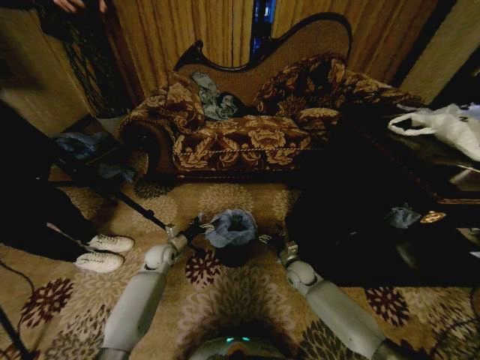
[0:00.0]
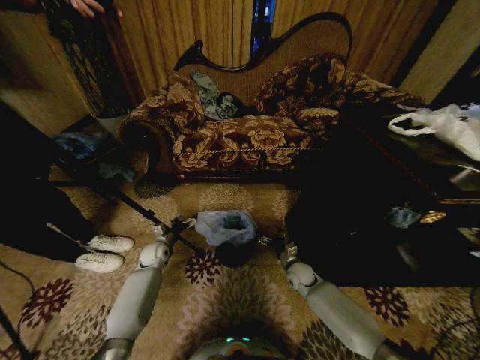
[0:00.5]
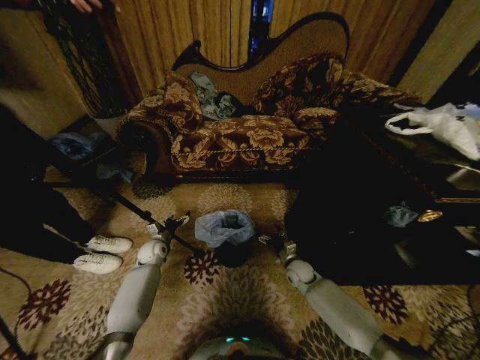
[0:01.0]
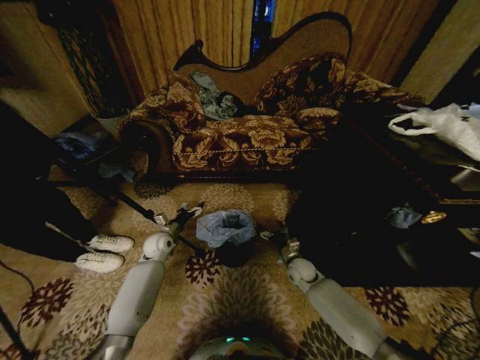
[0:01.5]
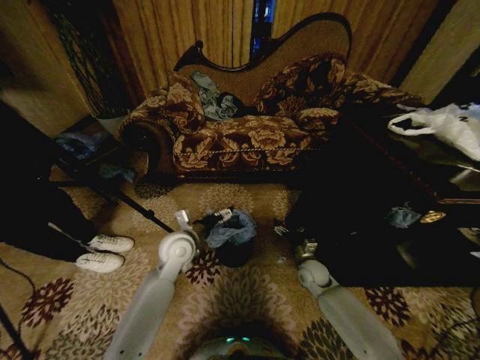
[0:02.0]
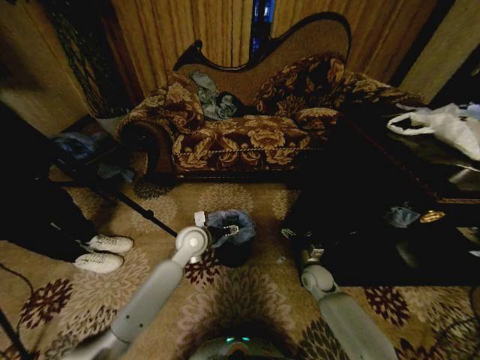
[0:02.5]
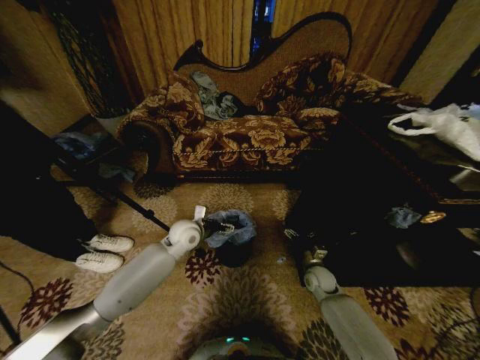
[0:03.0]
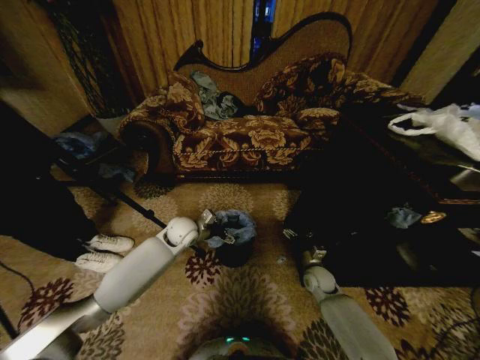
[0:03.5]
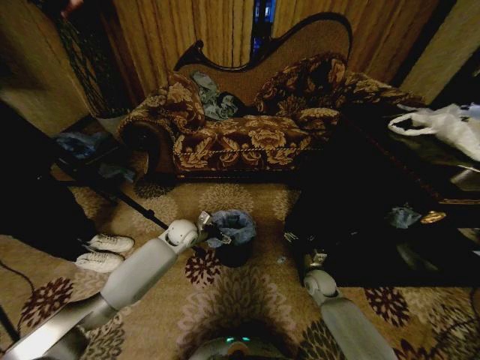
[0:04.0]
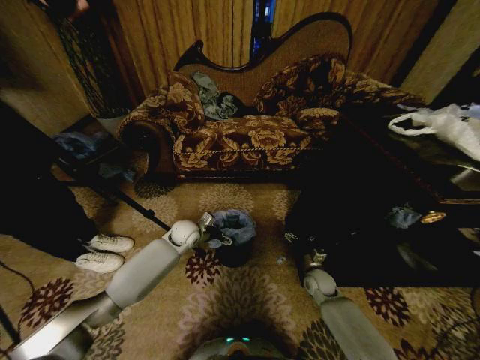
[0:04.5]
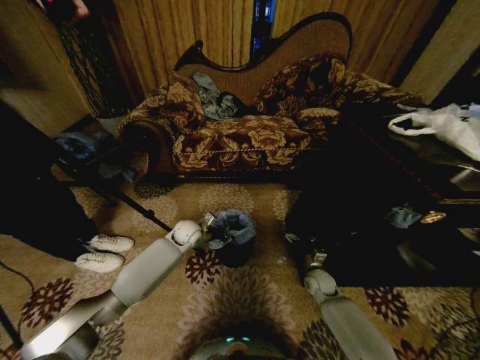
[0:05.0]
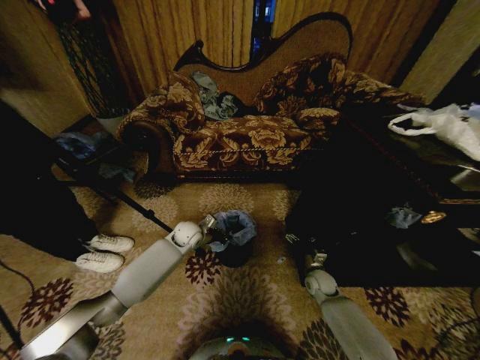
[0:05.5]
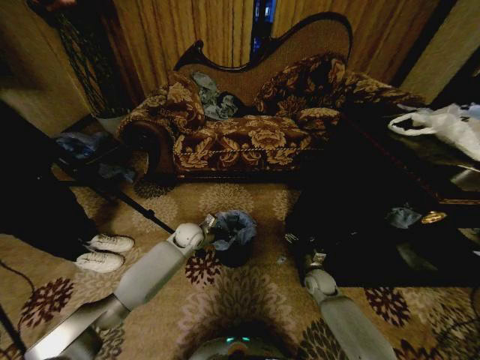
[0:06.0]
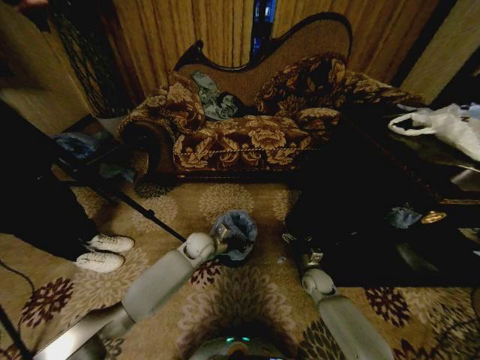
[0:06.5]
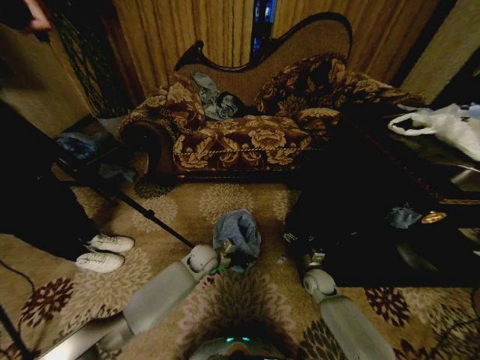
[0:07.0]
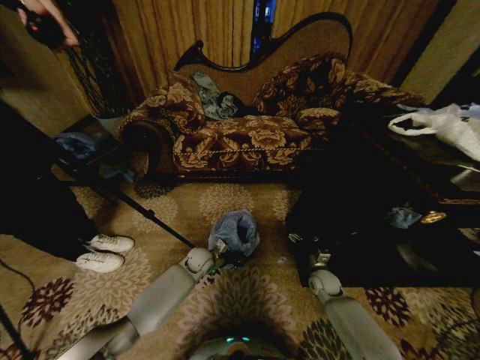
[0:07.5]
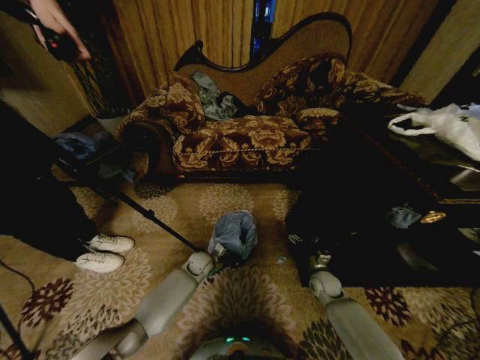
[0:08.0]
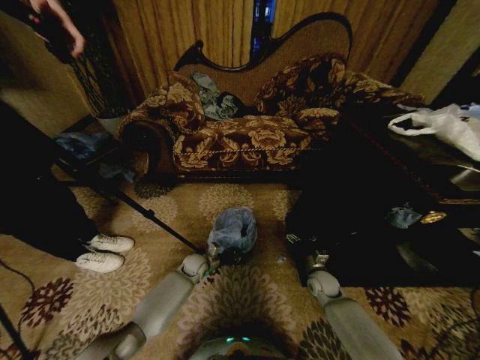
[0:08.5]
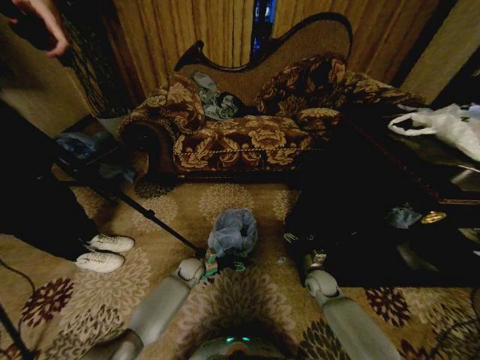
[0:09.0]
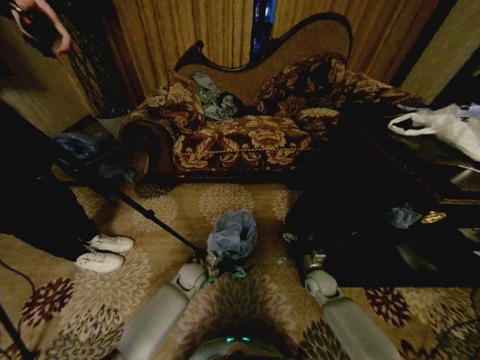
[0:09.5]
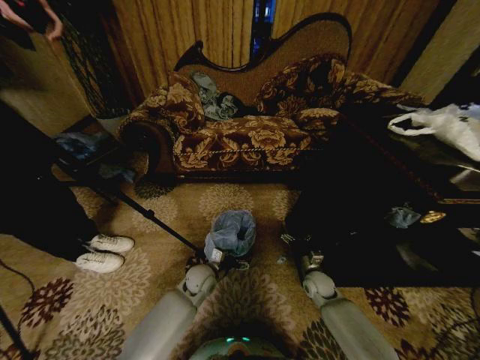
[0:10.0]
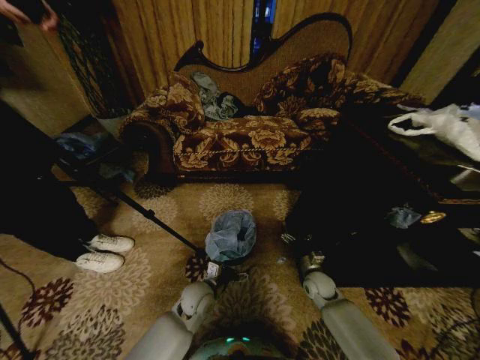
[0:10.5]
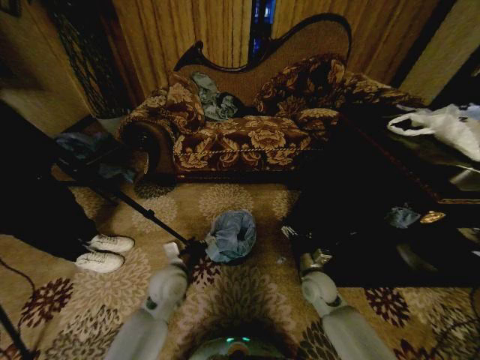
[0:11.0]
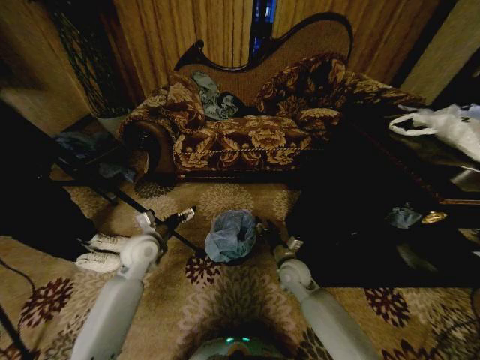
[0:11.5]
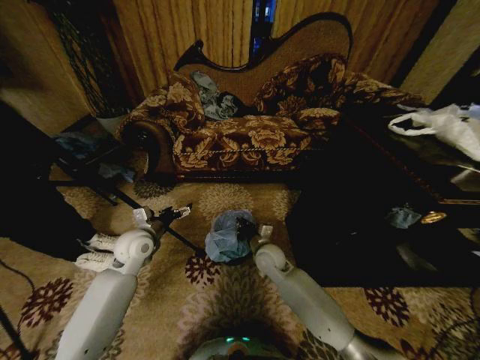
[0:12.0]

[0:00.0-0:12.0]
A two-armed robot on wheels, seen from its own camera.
Task of the whole recording: Place a garbage bag over the trash bin.
0:00.0 to 0:02.0: The left gripper shifts about 20 cm upward and to the right.
0:02.0 to 0:04.0: The right gripper changes place by approximately 5 cm. The left gripper heads forward and downward, covering roughly 10 cm.
0:04.0 to 0:06.0: The left gripper closes.
0:06.0 to 0:08.0: The left gripper shifts about 10 cm downward.
0:08.0 to 0:10.0: The left gripper shifts roughly 10 cm backward and upward, and opens.
0:10.0 to 0:12.0: Both grippers move to the left and upward, approximately 25 cm. The right gripper closes its fingers.

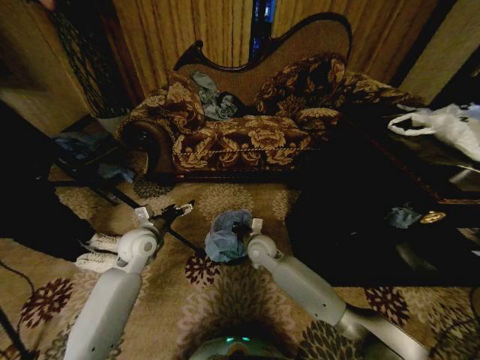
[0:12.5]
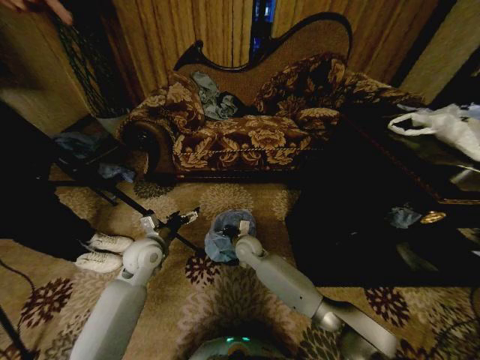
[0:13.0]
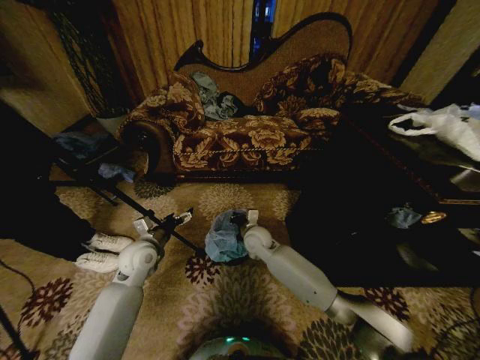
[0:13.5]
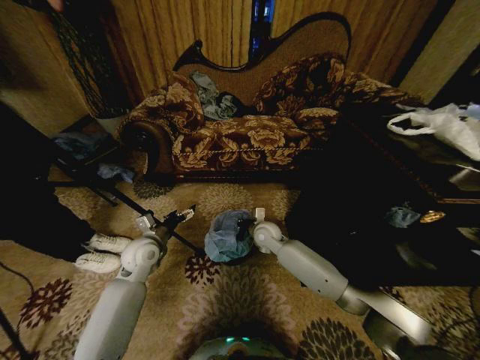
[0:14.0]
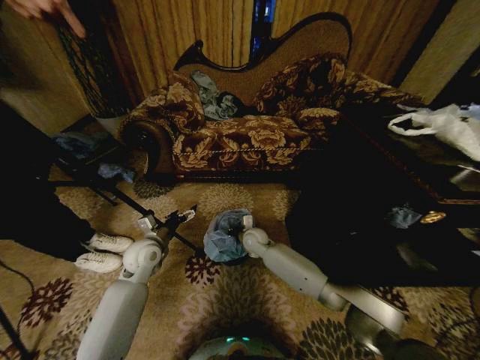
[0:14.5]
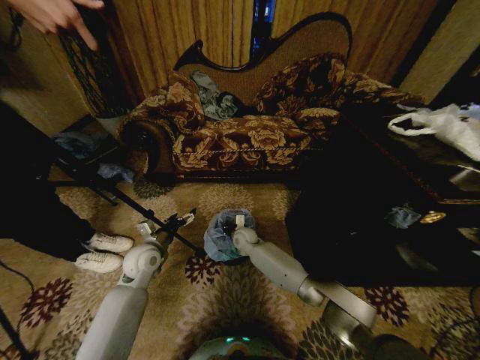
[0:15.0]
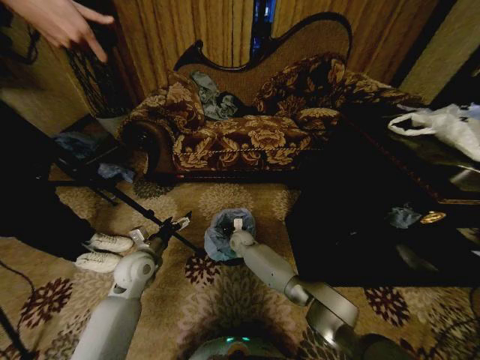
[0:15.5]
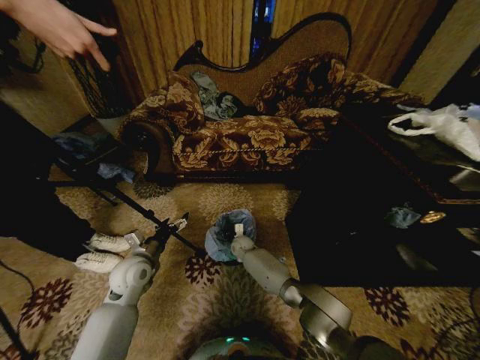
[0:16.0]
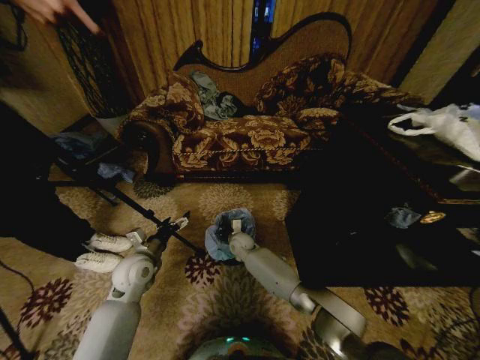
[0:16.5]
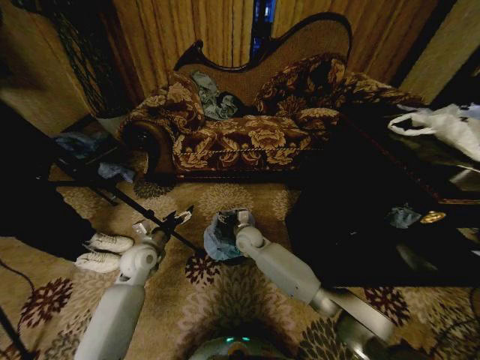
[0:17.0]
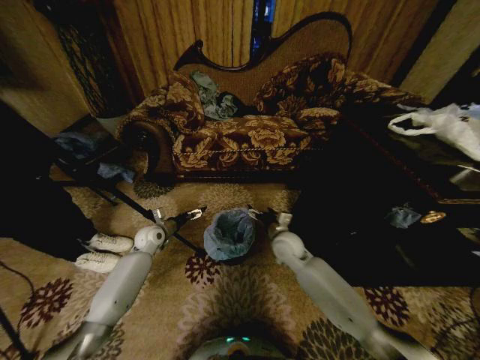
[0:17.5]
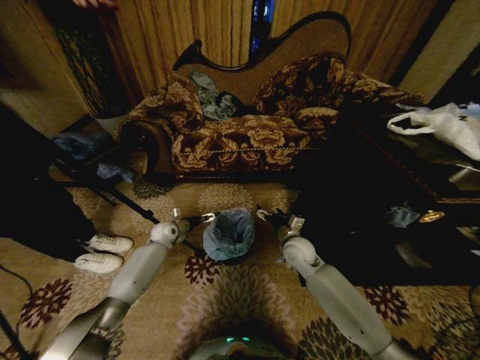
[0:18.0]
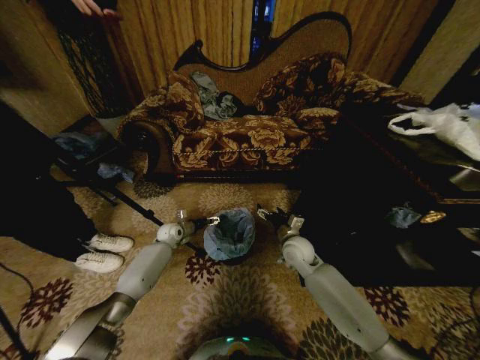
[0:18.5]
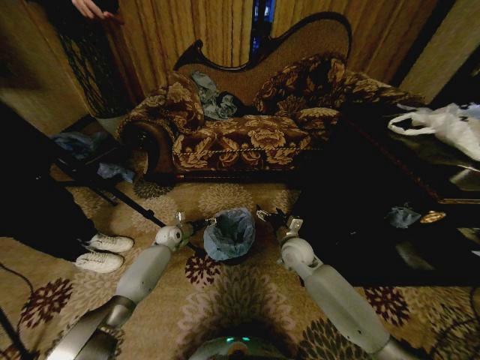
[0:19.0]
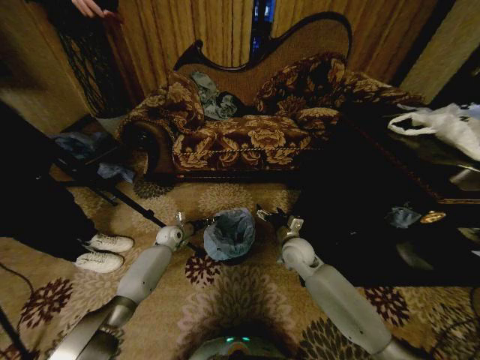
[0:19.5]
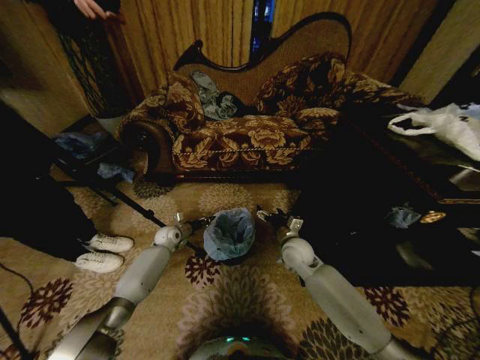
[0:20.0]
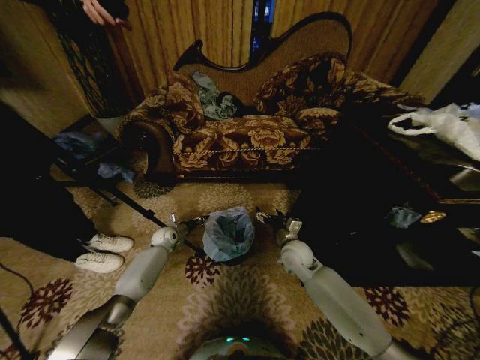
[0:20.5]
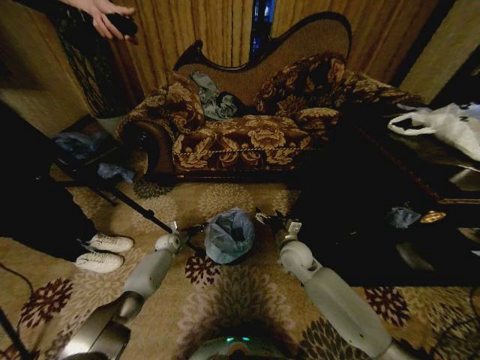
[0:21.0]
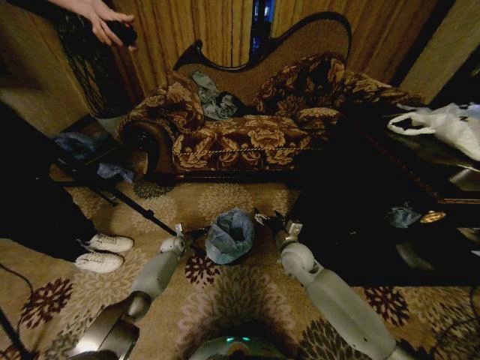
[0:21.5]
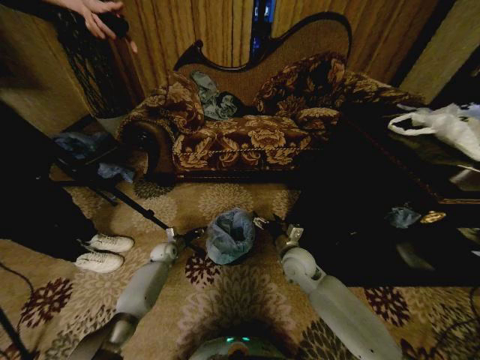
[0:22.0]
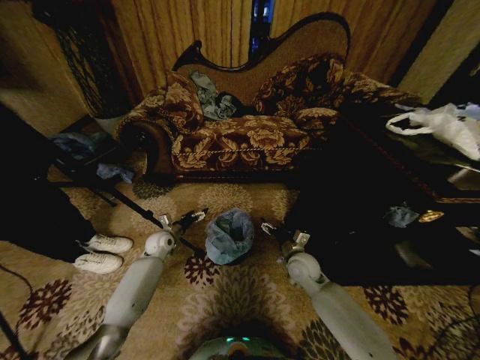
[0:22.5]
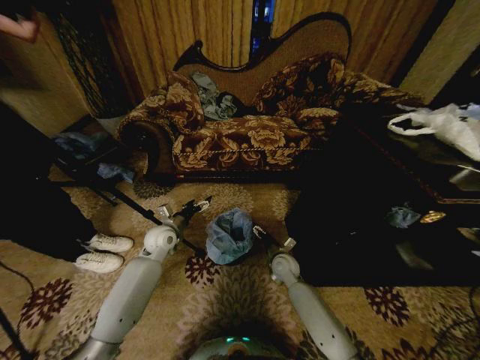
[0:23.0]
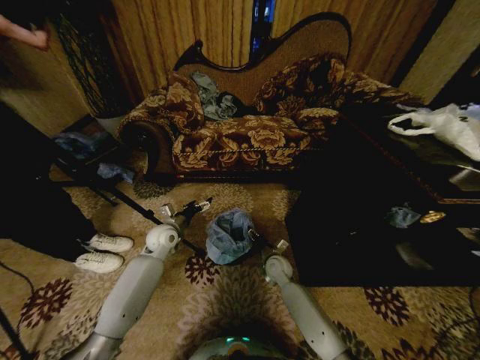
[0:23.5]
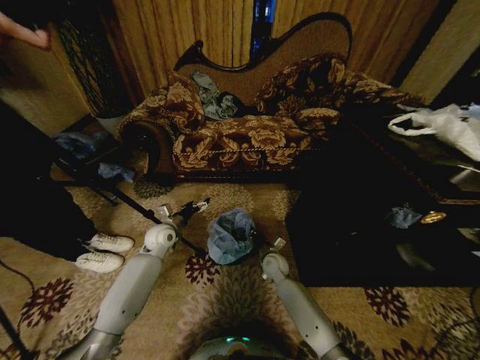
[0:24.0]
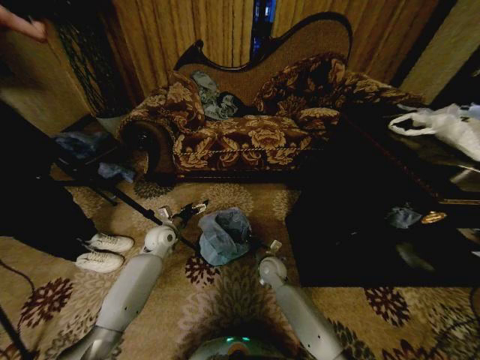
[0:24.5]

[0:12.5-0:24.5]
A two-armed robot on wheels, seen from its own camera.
Task of the whole recording: Place a garbage bag over the trash bin.
0:12.5 to 0:14.5: The right gripper heads forward, covering approximately 5 cm.
0:14.5 to 0:16.5: The right gripper goes approximately 5 cm downward and to the left.
0:16.5 to 0:18.5: The left gripper travels forward and downward by some 20 cm. The right gripper heads to the right, upward and backward, covering some 20 cm, and opens its fingers.
0:18.5 to 0:20.5: The left gripper closes up.
0:20.5 to 0:22.5: The left gripper shifts approximately 5 cm backward, travels downward and back again, roughly 10 cm each way, and opens its fingers.
0:22.5 to 0:24.5: The left gripper heads upward, covering some 5 cm, while the right gripper moves to the left and downward, some 10 cm, and closes its fingers.

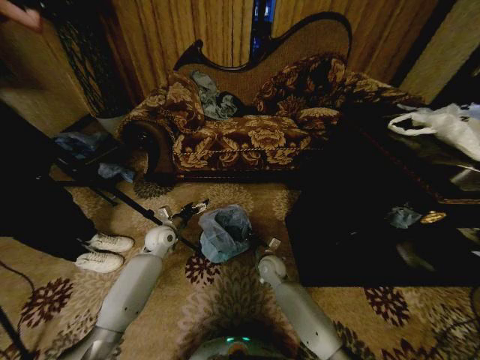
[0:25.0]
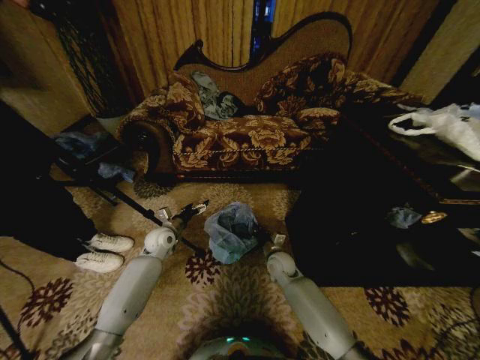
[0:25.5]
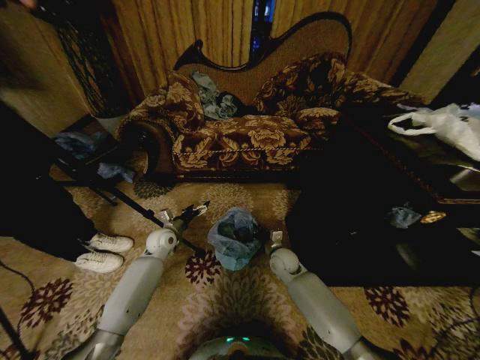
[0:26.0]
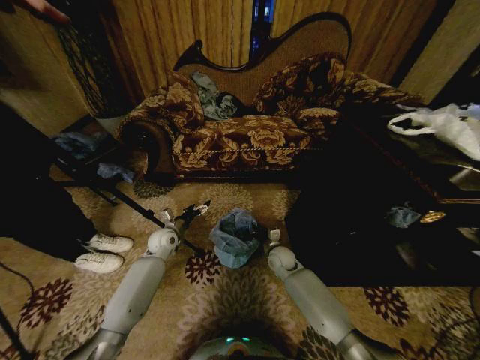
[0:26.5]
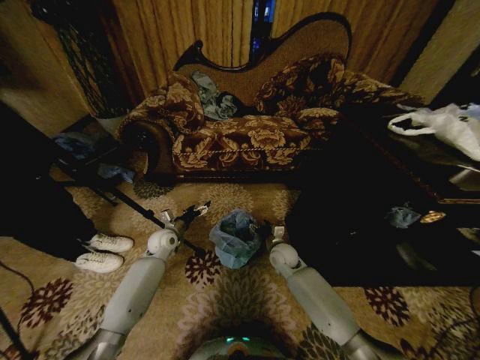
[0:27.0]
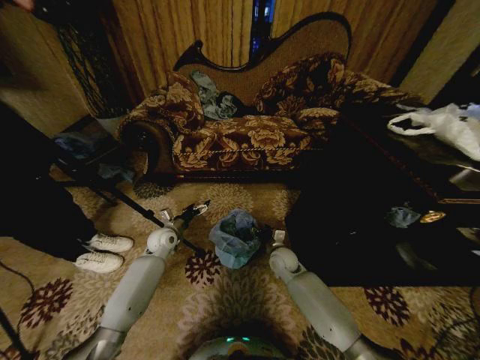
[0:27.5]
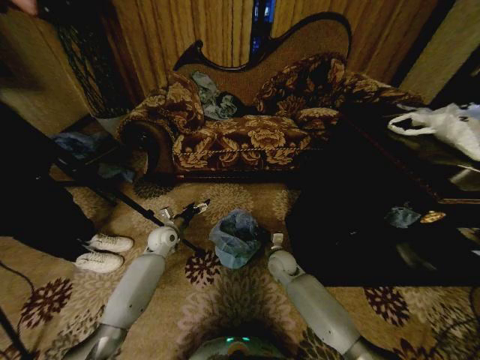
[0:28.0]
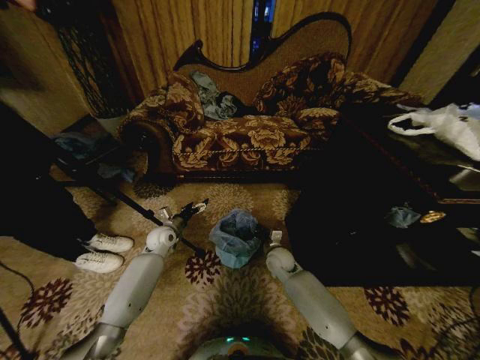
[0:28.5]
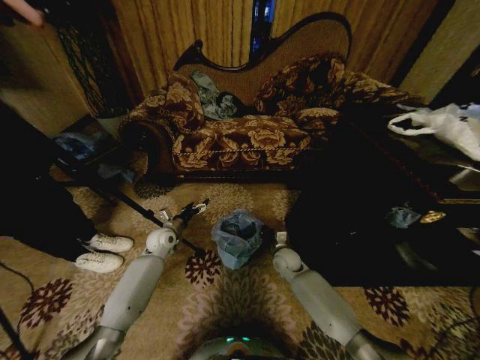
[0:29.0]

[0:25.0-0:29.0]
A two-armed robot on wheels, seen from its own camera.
Task of the whole recording: Place a garbage bag over the trash bin.
0:25.0 to 0:27.0: The right gripper ends up some 5 cm from where it was, and opens.
0:27.0 to 0:29.0: The right gripper closes its fingers.
